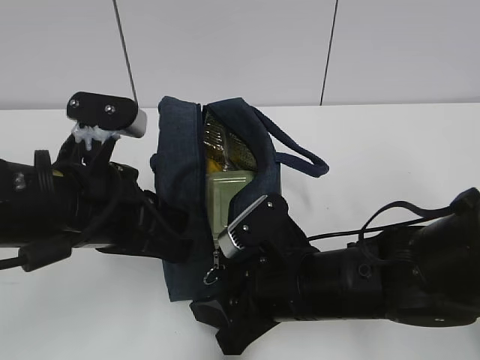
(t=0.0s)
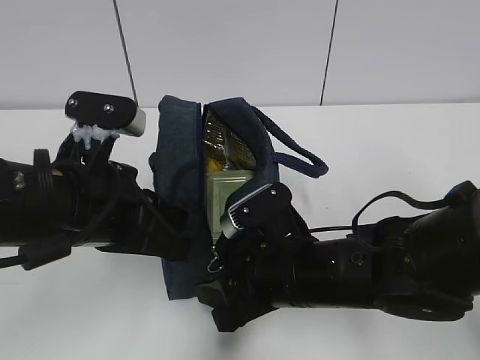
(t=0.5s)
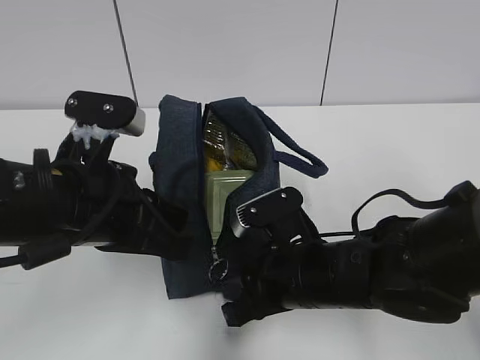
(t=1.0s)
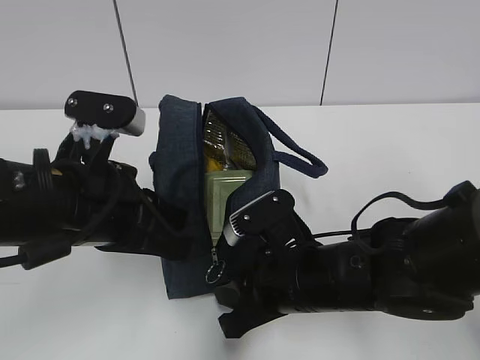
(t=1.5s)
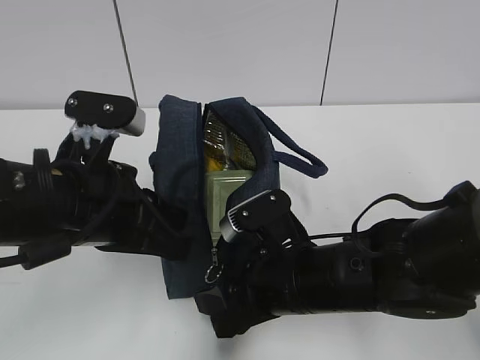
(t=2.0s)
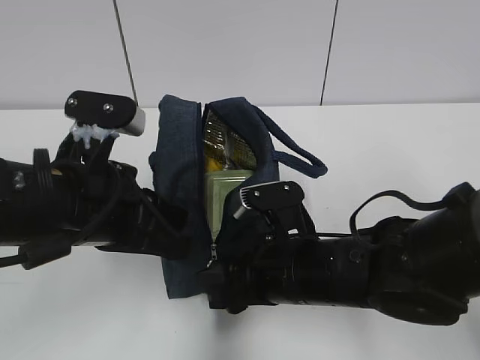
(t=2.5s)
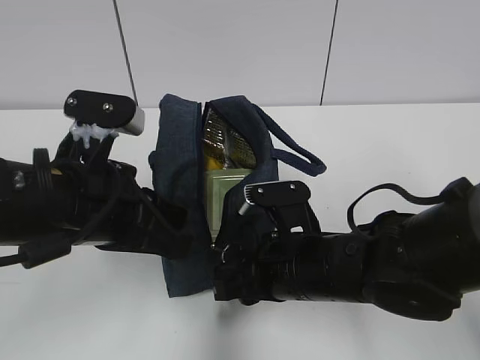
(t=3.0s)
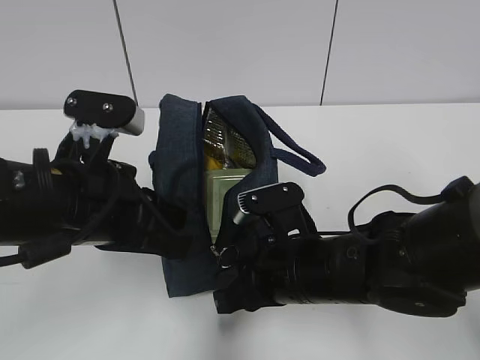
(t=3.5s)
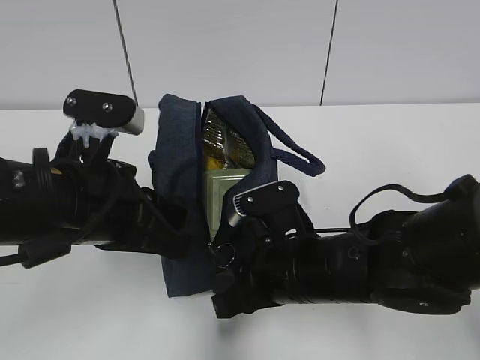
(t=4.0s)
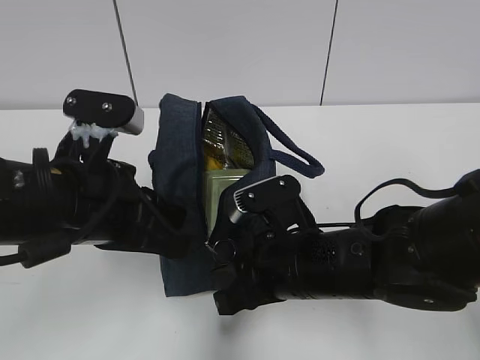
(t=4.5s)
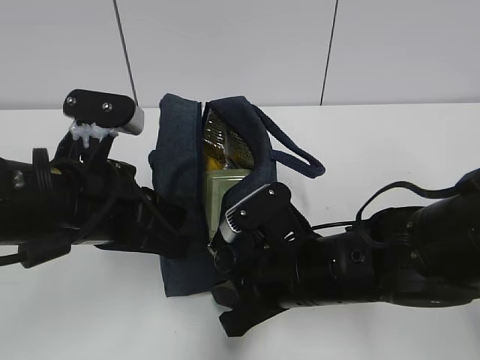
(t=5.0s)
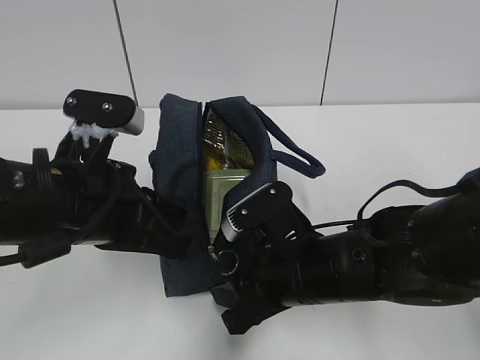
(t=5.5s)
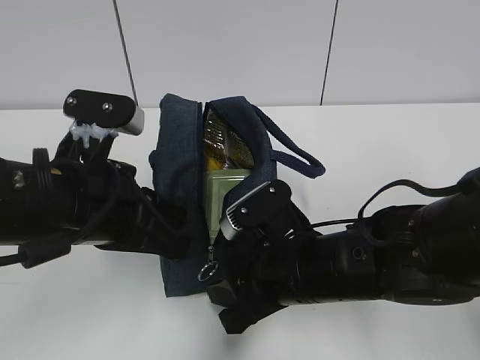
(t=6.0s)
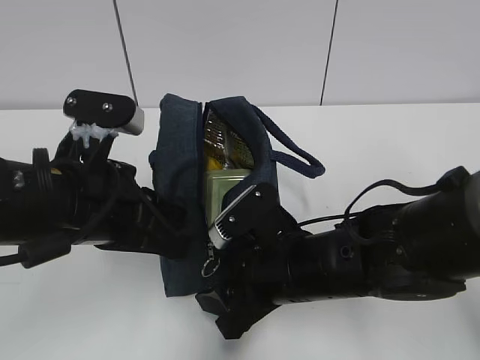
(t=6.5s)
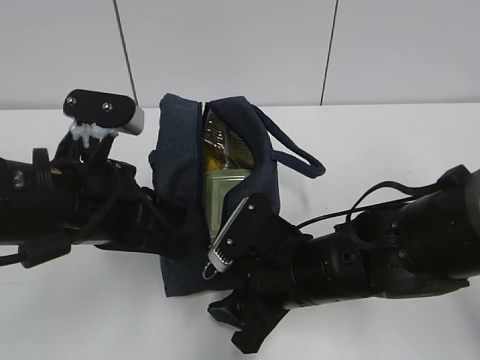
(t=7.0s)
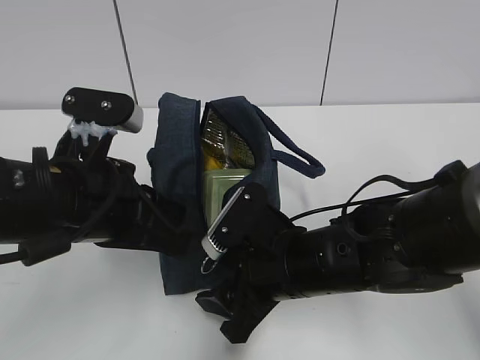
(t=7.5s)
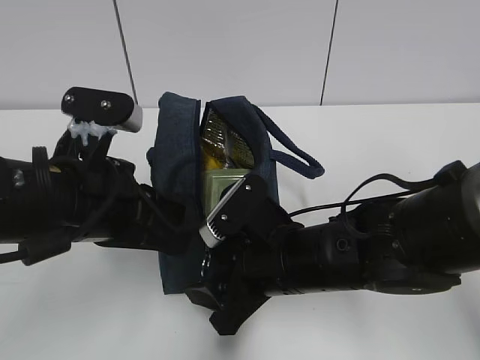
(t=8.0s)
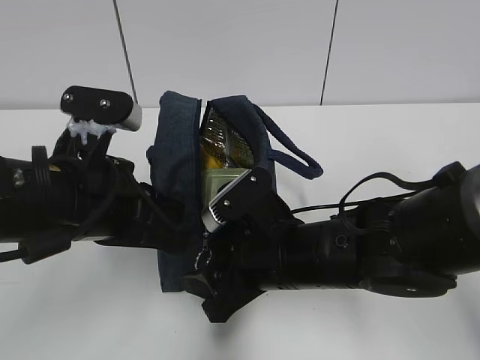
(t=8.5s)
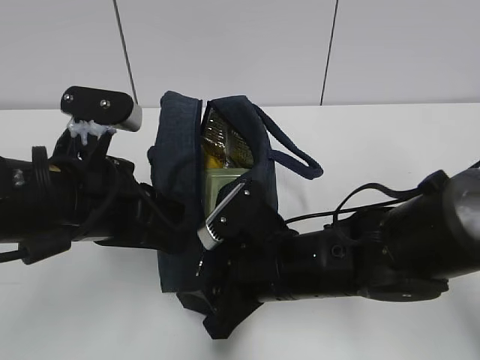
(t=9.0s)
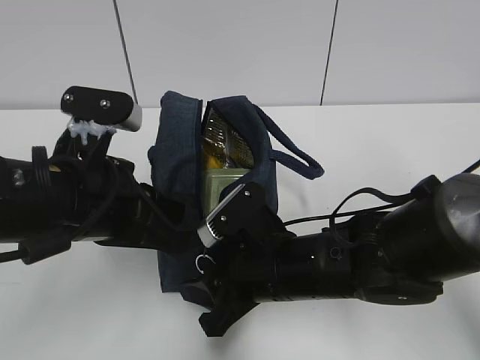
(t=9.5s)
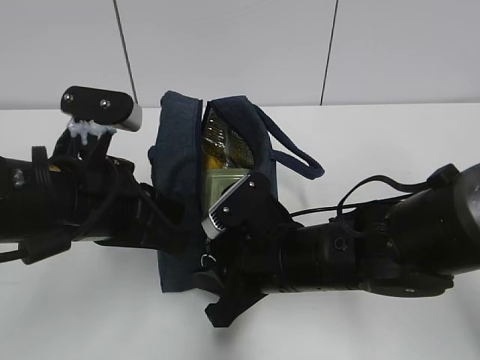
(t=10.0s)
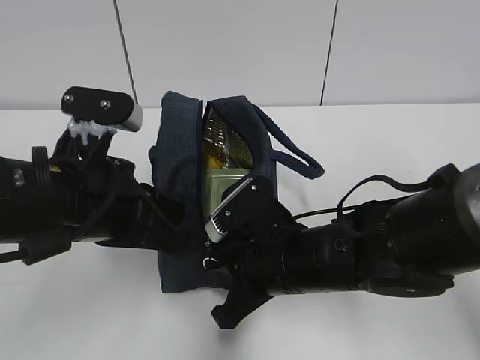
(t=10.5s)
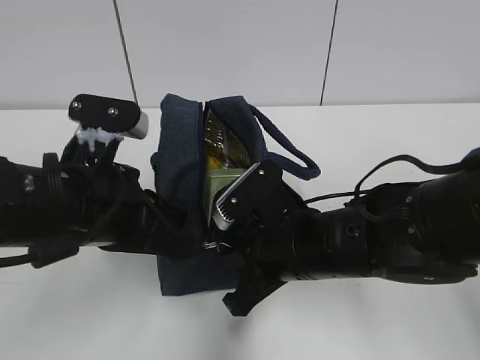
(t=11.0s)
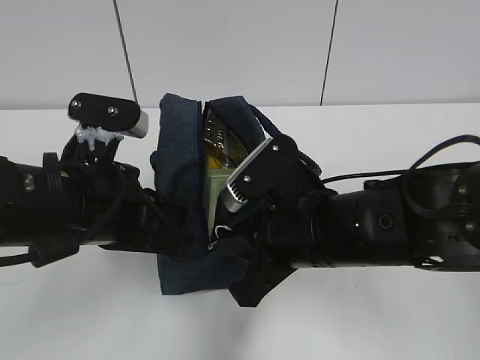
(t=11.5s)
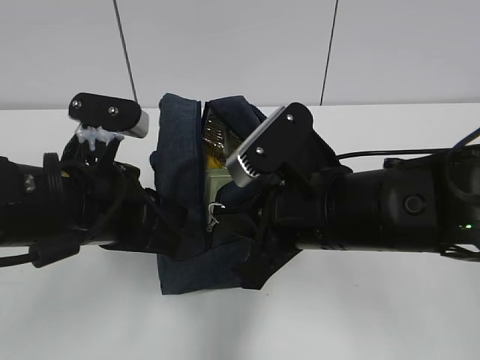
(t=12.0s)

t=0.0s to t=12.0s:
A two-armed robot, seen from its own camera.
t=0.0s to t=2.0s: The right gripper closes, then reopens.
t=2.0s to t=6.0s: The grippers stay close to where they were, moving slightly.
t=6.0s to t=8.0s: The grippers make only small movements.
t=8.0s to t=10.0s: The right gripper closes its fingers.
t=10.0s to t=12.0s: The right gripper moves upward, roughly 10 cm, and closes.

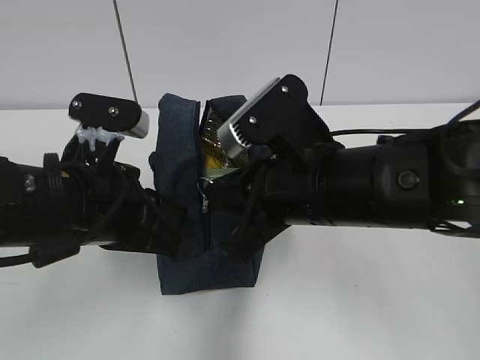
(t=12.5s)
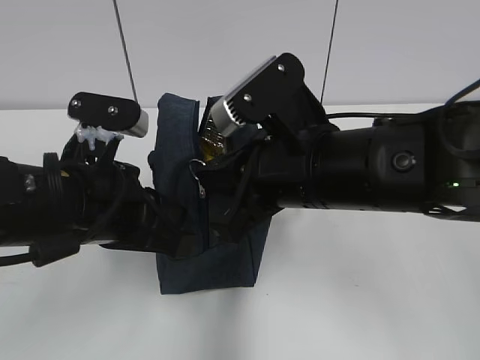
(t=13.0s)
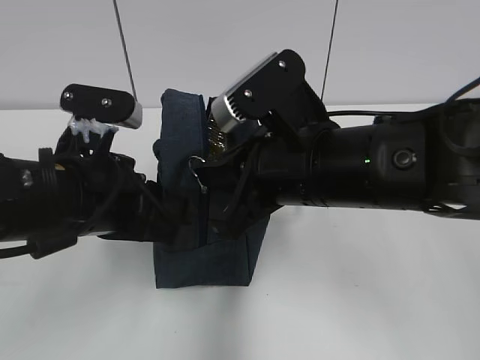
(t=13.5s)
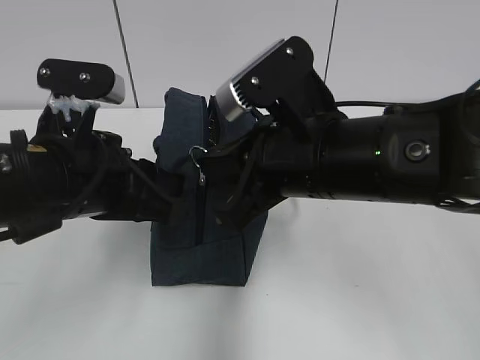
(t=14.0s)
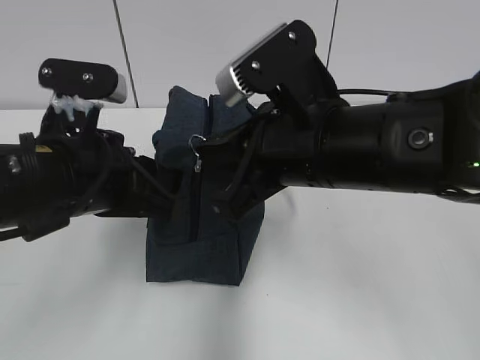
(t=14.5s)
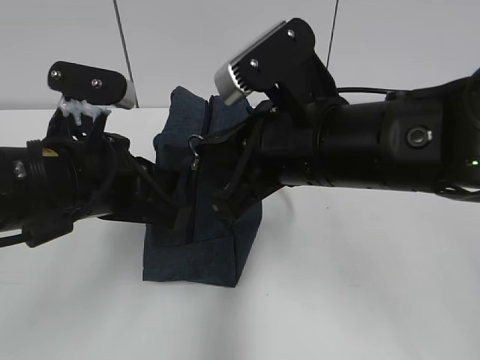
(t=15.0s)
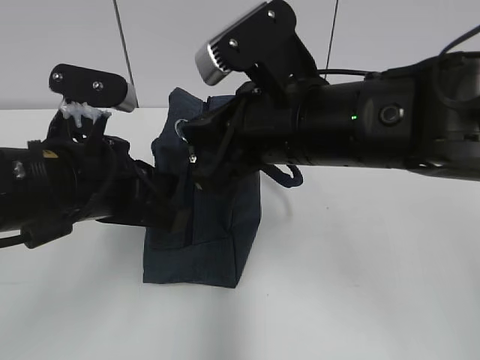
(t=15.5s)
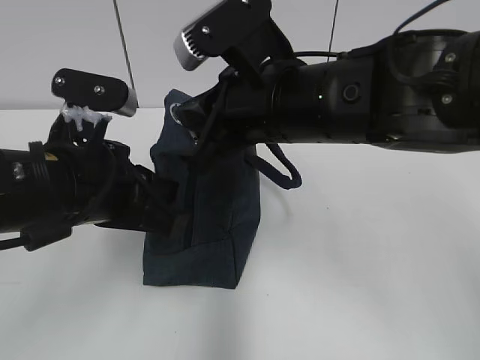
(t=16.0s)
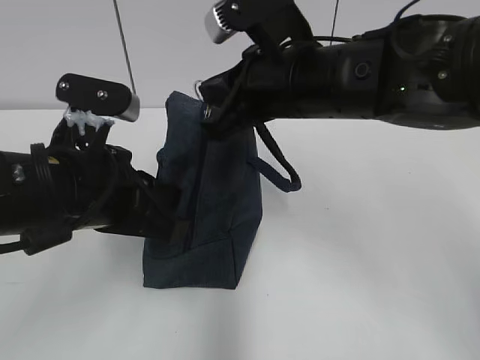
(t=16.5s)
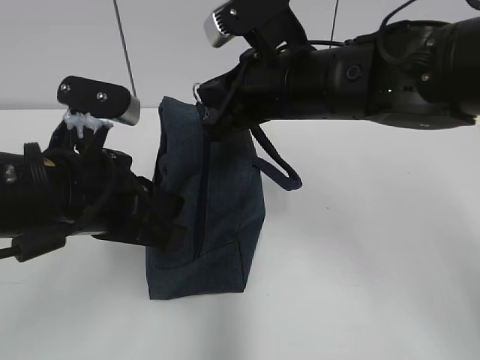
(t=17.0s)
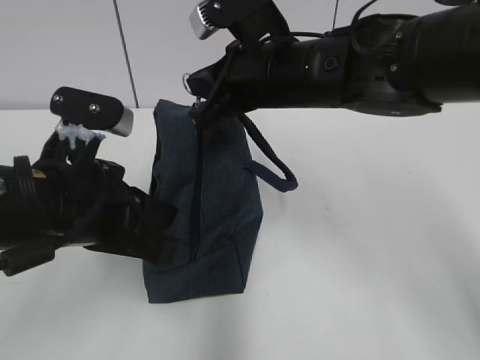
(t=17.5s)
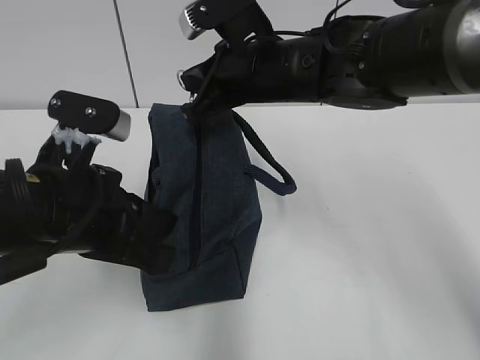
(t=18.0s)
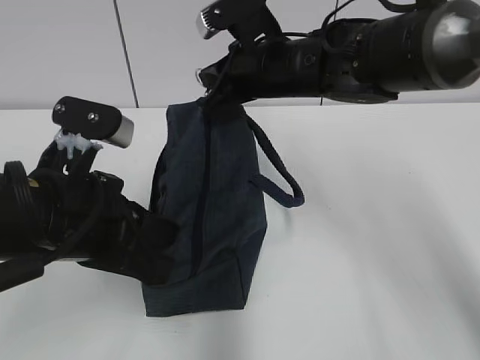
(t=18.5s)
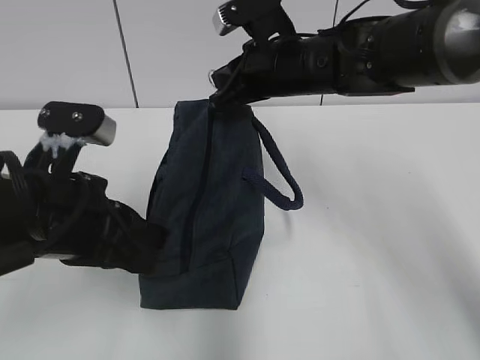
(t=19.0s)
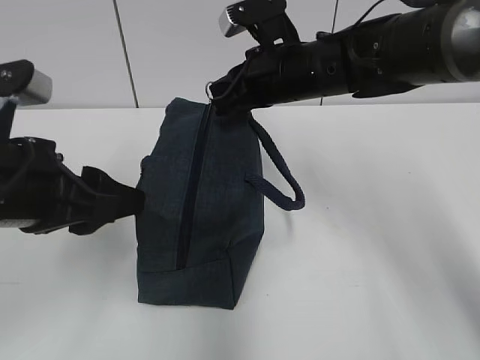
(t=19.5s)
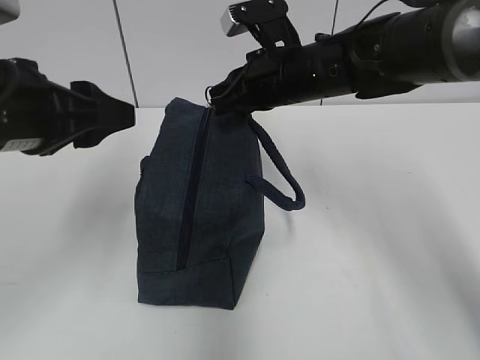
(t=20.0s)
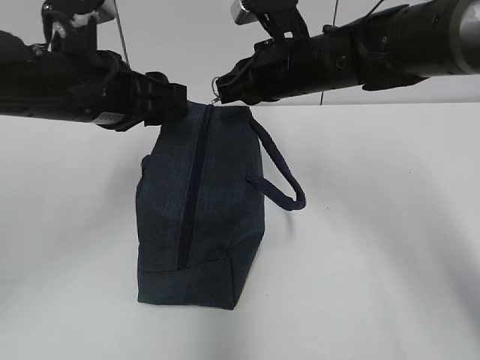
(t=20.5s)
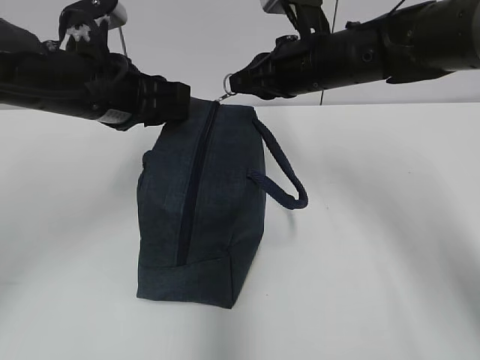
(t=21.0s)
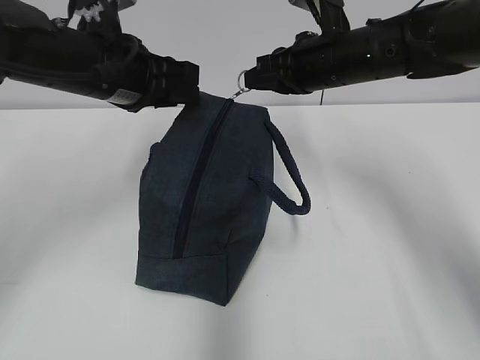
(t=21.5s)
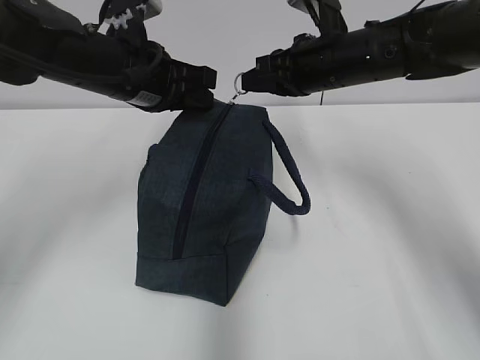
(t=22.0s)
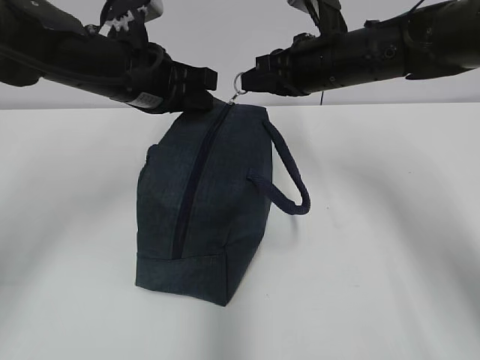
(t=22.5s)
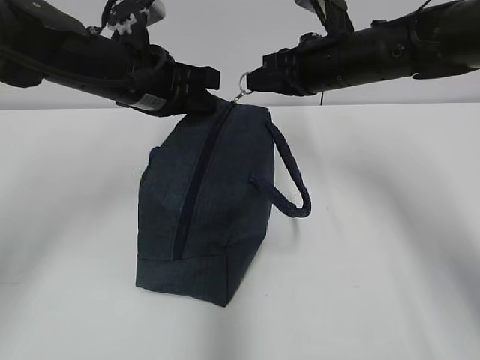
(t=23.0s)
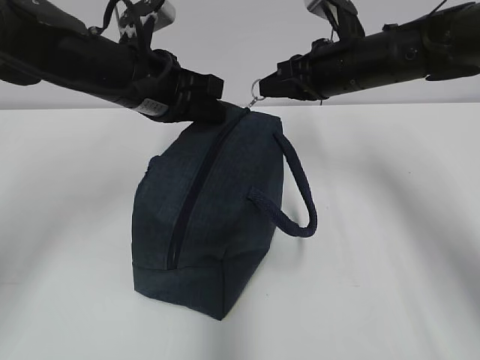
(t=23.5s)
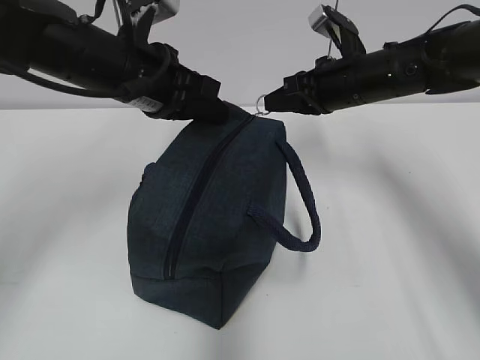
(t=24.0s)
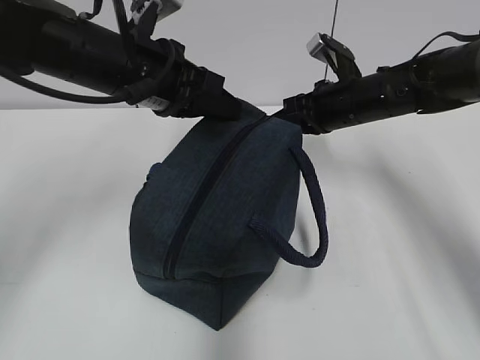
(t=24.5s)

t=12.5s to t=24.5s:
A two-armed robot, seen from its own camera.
t=12.5s to t=14.5s: The left gripper opens its fingers.
t=14.5s to t=16.5s: The left gripper closes. Meanwhile the right gripper shifts approximately 5 cm forward.
t=16.5s to t=18.5s: The right gripper moves forward, roughly 10 cm.
t=18.5s to t=20.5s: The left gripper heads forward, covering some 10 cm, and opens its fingers.
t=20.5s to t=22.5s: The left gripper moves forward, roughly 5 cm, and closes its fingers.
t=22.5s to t=24.5s: The right gripper heads downward, covering about 5 cm.

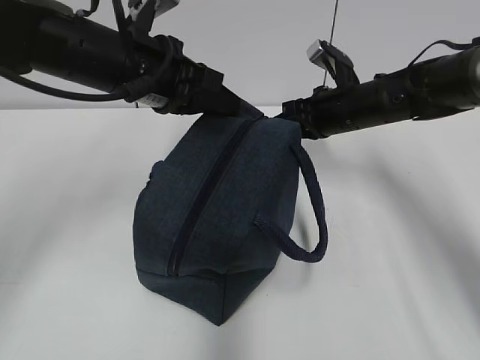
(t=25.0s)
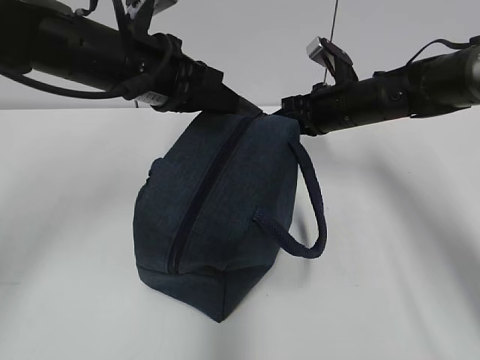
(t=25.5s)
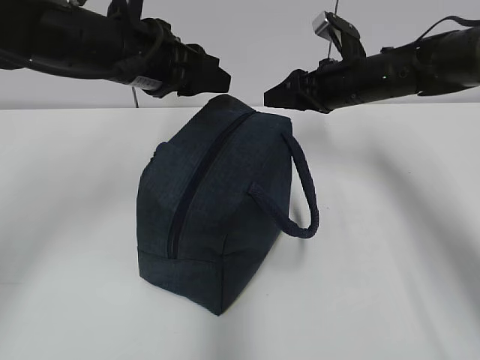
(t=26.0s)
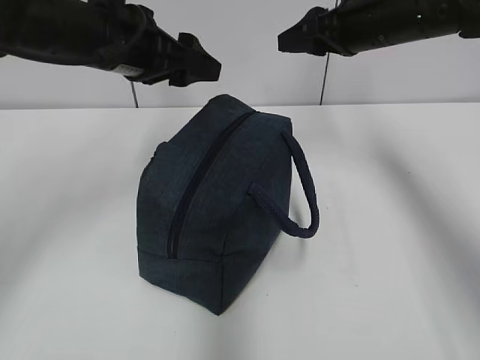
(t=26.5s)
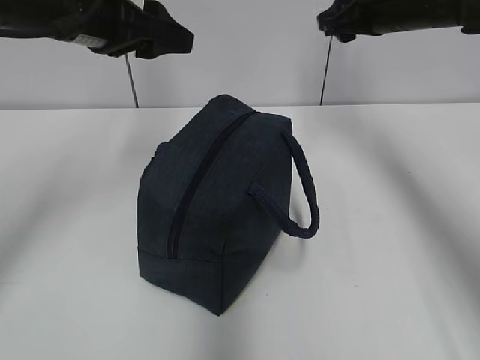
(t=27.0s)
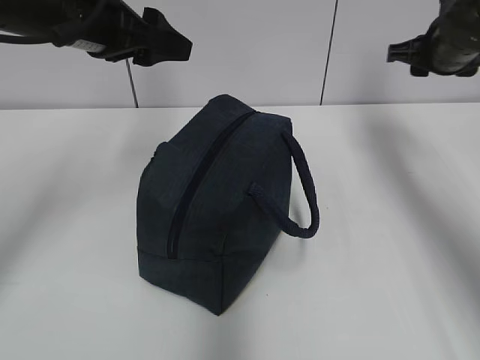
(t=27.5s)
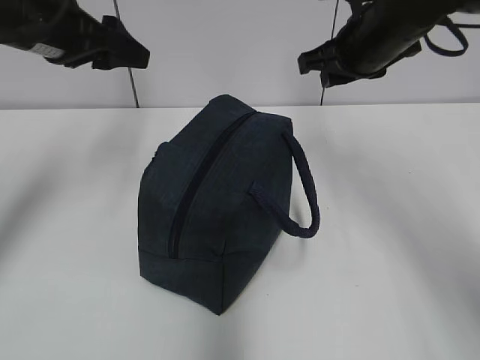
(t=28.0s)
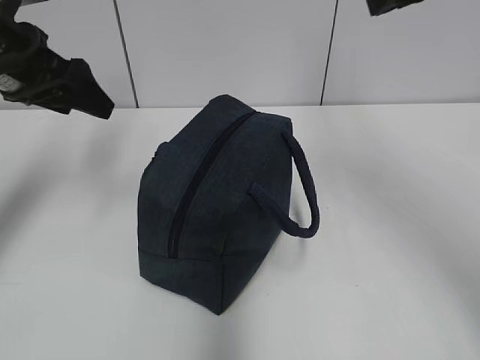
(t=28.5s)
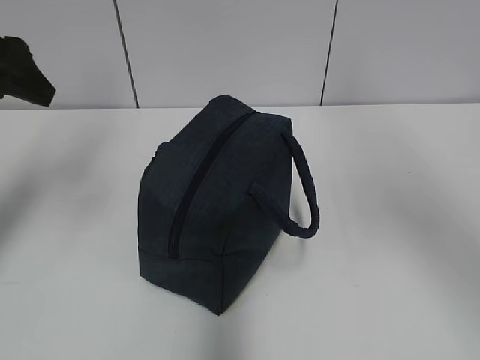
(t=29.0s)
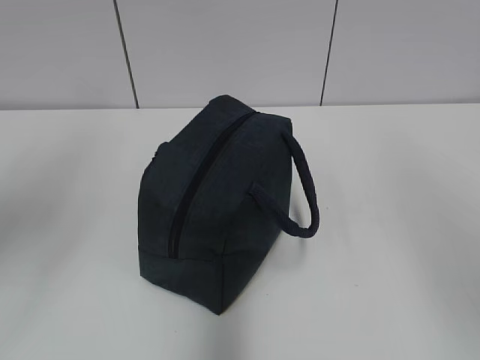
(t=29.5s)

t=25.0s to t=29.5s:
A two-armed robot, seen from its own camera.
t=25.0s to t=27.0s: The left gripper shifts some 5 cm to the left, and opens; the right gripper shifts approximately 15 cm upward, and opens its fingers.
t=27.0s to t=29.5s: The right gripper is displaced backward by roughly 40 cm, while the left gripper goes some 20 cm backward and to the left.
